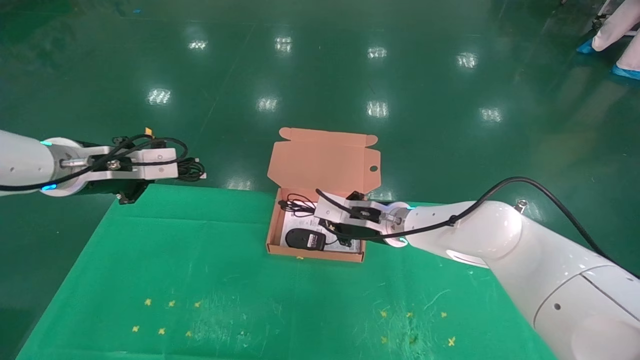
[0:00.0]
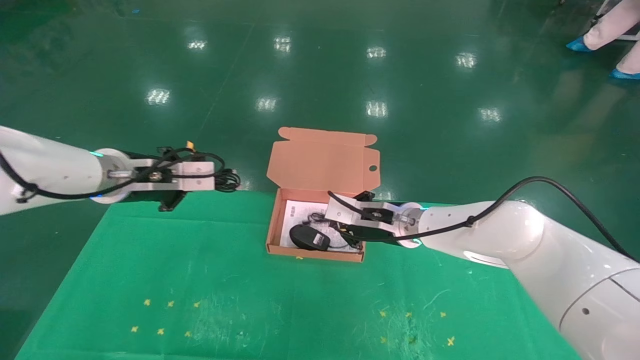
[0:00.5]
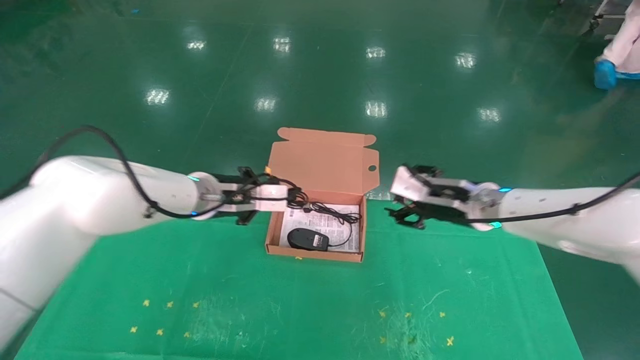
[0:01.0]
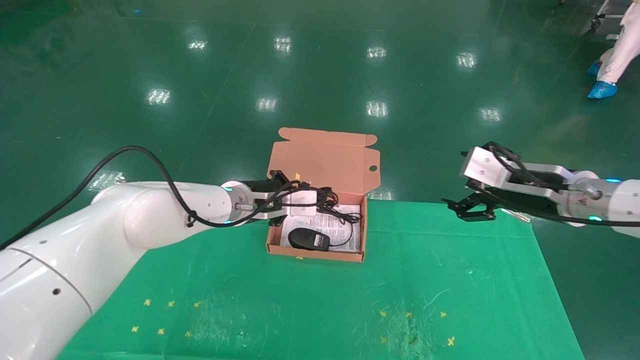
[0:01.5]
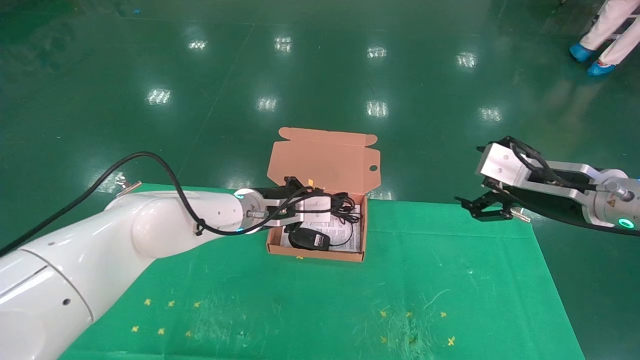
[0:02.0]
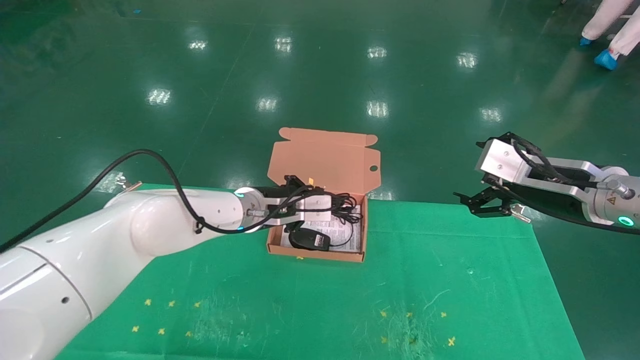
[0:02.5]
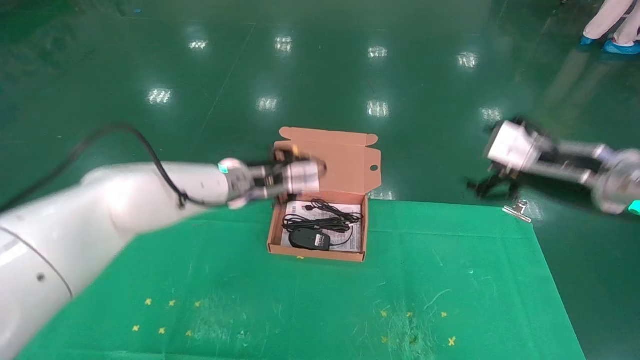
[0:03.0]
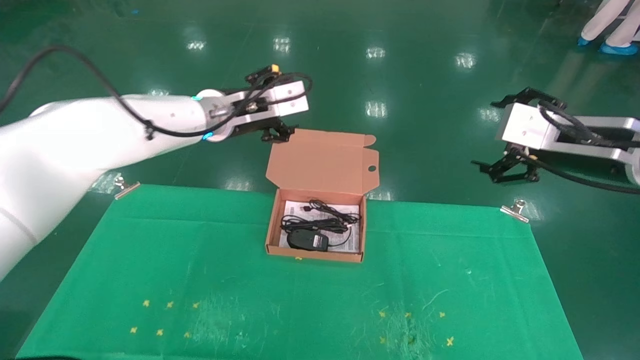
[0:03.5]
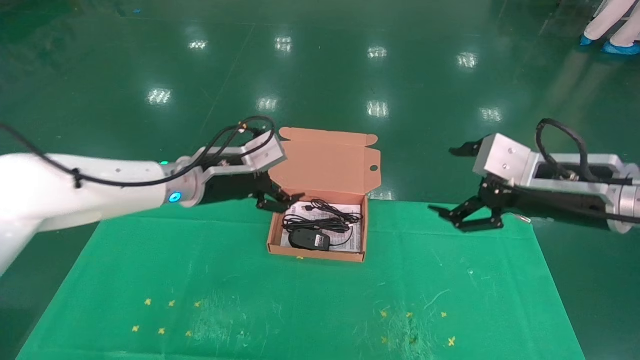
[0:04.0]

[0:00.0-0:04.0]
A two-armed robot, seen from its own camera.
Task of the whole recording: grasp data cable left put into box grasp mouse right put into box.
Step, 0:00.0 to 0:02.5: Place the mouse and power cord into the box.
0:00.0 to 0:02.0: The right gripper shifts approximately 25 cm to the right, backward and upward, and opens up, while the left gripper is displaced to the right, downward and forward by about 25 cm.
0:02.0 to 0:04.0: The right gripper goes approximately 5 cm backward; the left gripper moves to the left and upward, about 10 cm, and opens.

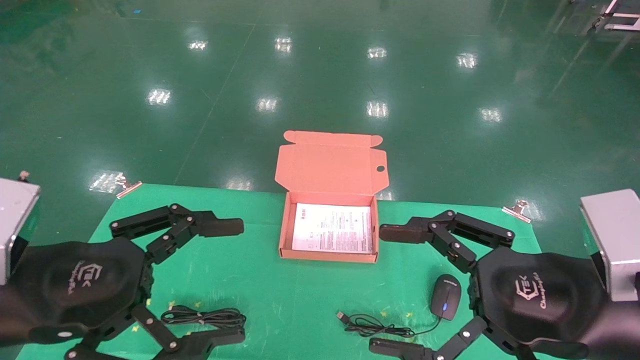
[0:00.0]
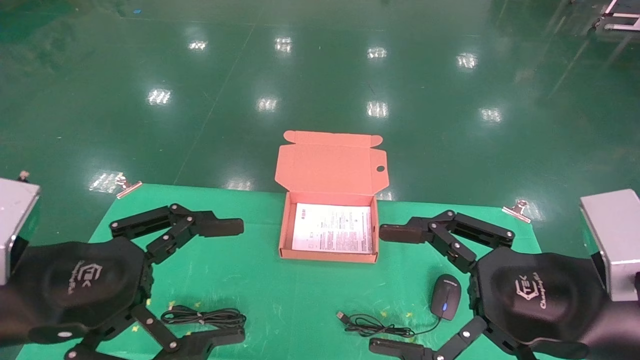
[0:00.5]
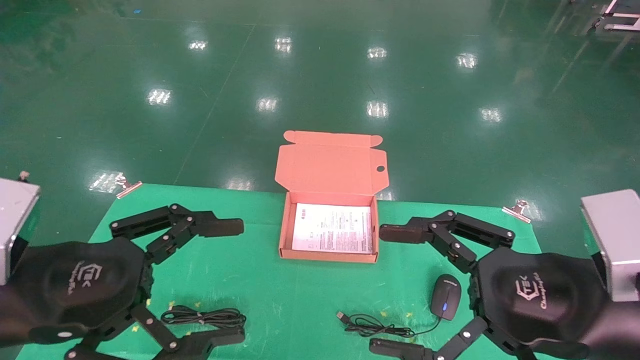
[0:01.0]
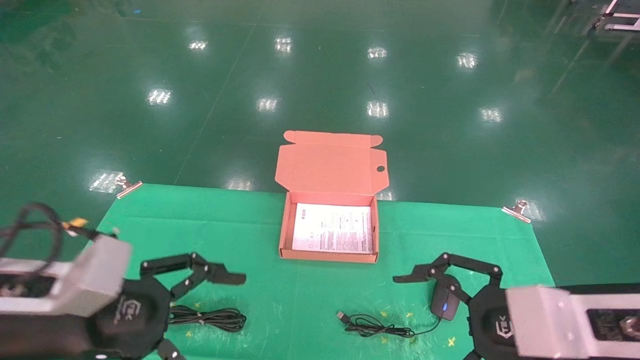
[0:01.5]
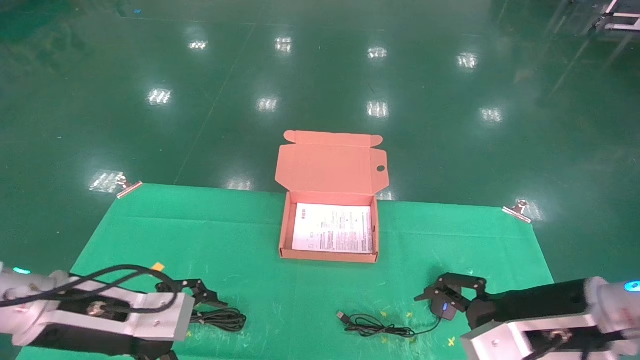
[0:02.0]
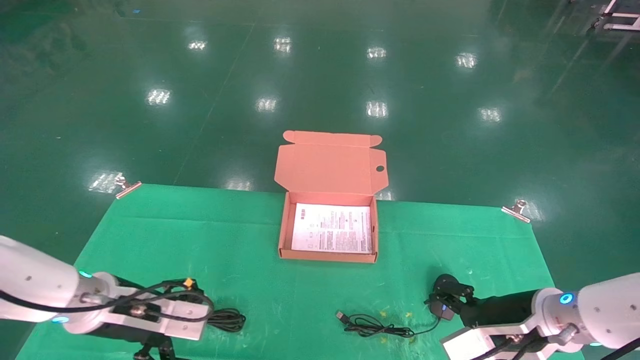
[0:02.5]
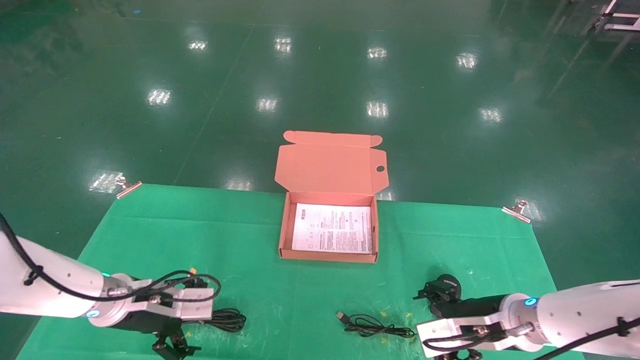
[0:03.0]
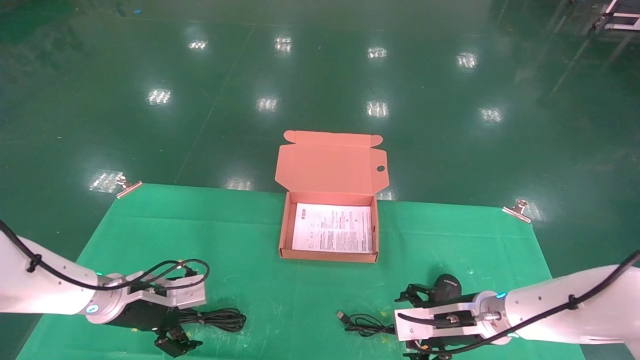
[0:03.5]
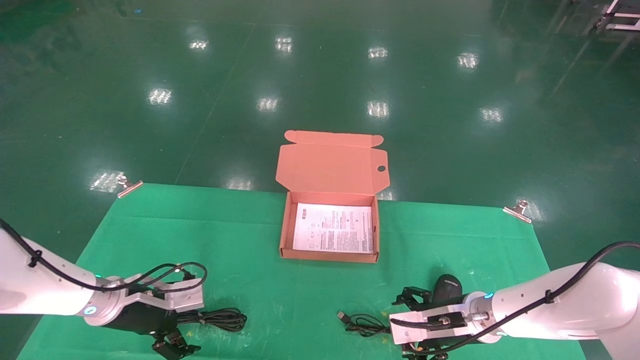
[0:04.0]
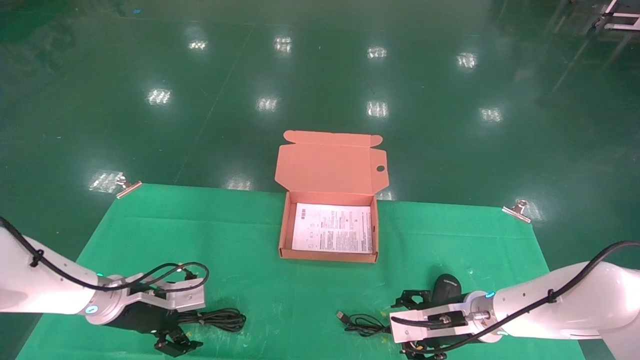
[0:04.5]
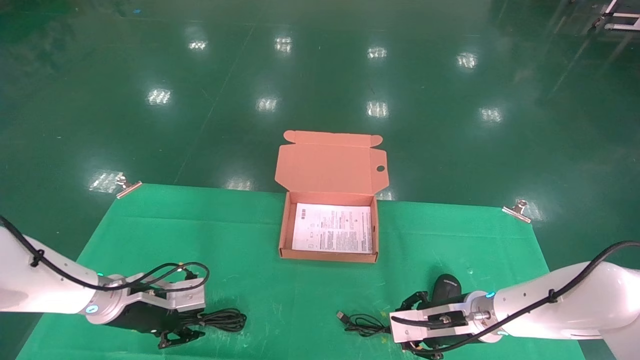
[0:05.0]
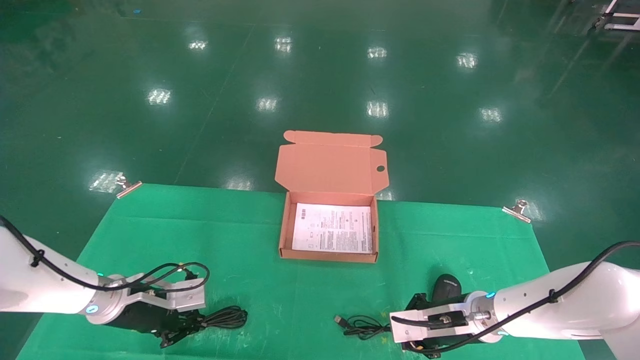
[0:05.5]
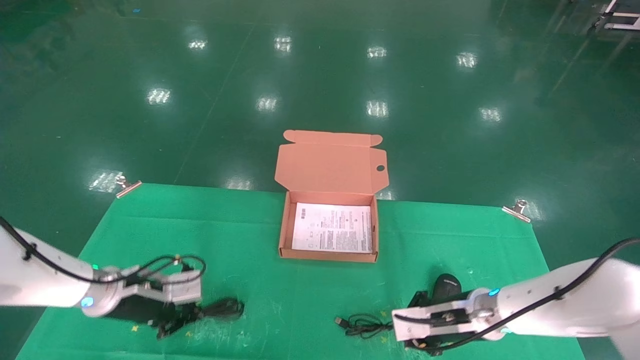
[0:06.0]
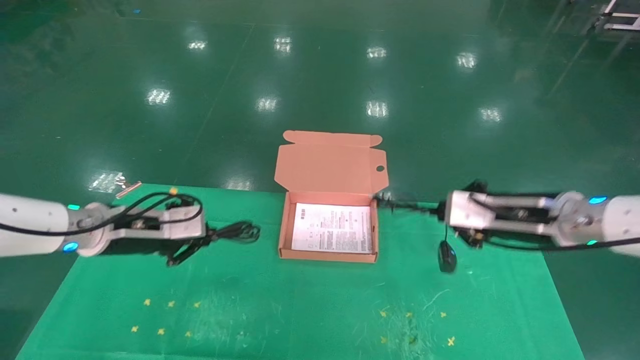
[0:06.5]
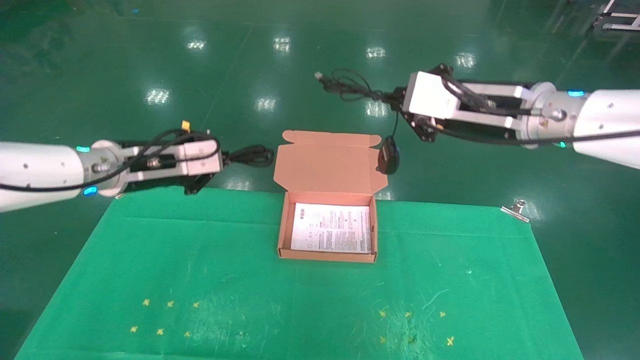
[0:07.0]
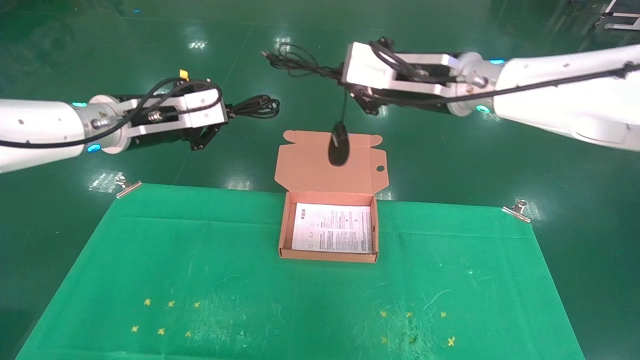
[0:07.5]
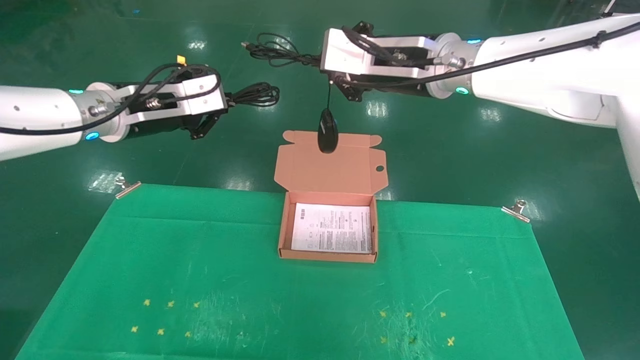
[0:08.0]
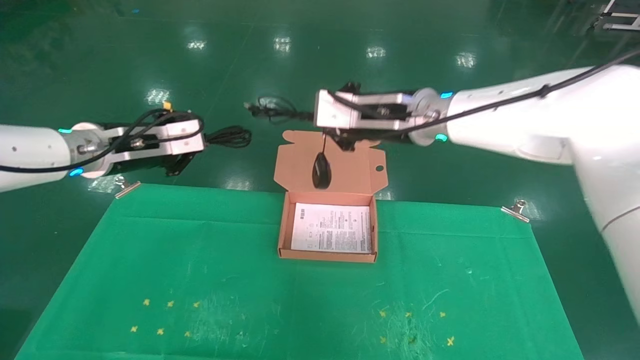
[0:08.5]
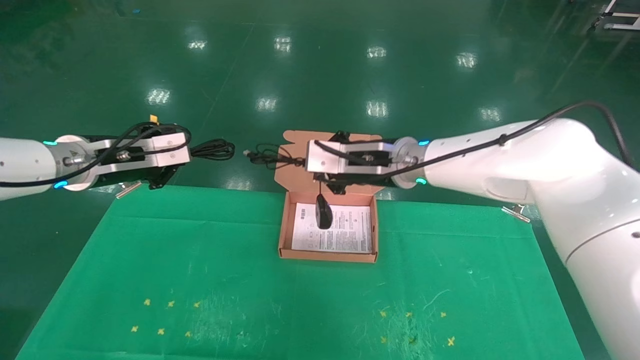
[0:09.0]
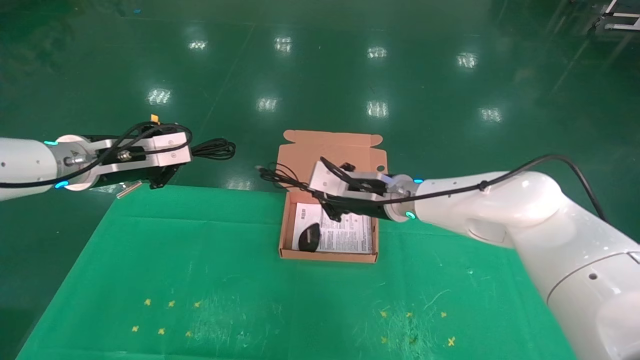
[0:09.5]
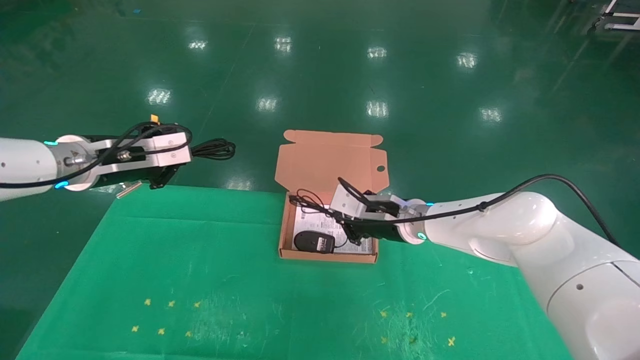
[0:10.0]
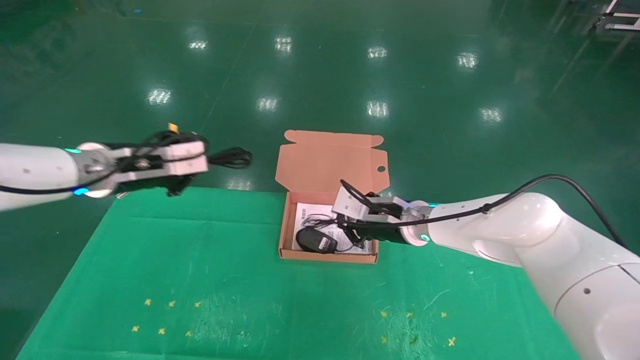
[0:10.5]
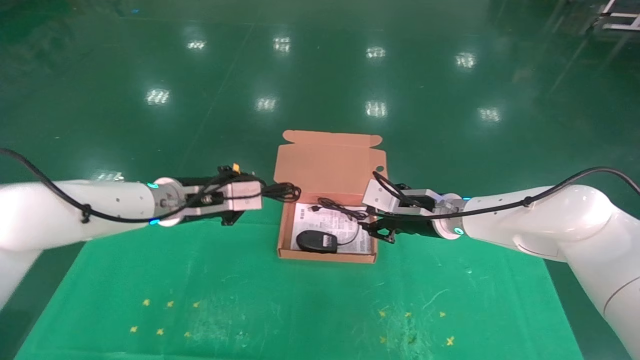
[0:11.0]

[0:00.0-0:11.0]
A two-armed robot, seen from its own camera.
Task of the whole recording: grasp data cable left put into box grasp mouse right put into box.
Step, 0:01.5 to 0:05.5: Grab and pick up both the mouse and power cord from the accessory packaging area at the same time.
0:00.0 to 0:02.0: Both grippers move forward and downward, roughly 15 cm.
0:02.0 to 0:03.5: Both grippers travel together forward and downward, roughly 15 cm.
0:03.5 to 0:05.5: The right gripper closes, while the left gripper closes its fingers.
0:05.5 to 0:07.5: Both grippers travel together upward, roughly 30 cm.
0:07.5 to 0:09.0: The right gripper travels downward and to the left by approximately 15 cm, while the left gripper travels to the left by roughly 5 cm.
0:09.0 to 0:11.0: The right gripper shifts about 15 cm to the right and downward, and opens its fingers; the left gripper moves to the right, downward and forward, some 15 cm.

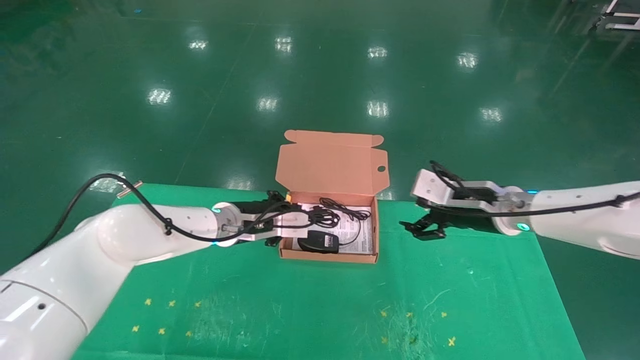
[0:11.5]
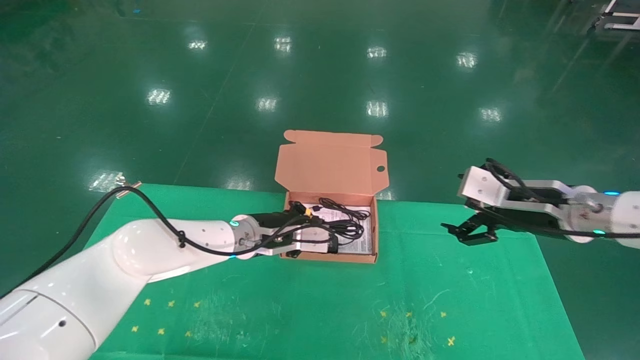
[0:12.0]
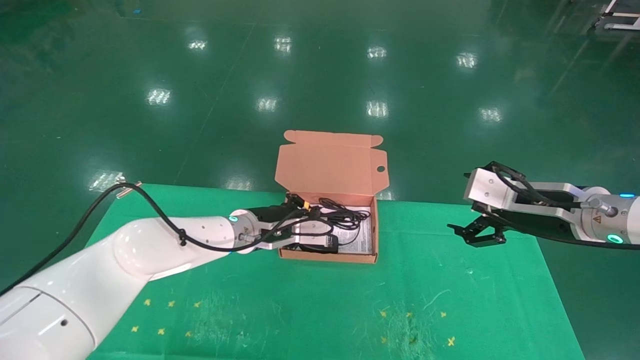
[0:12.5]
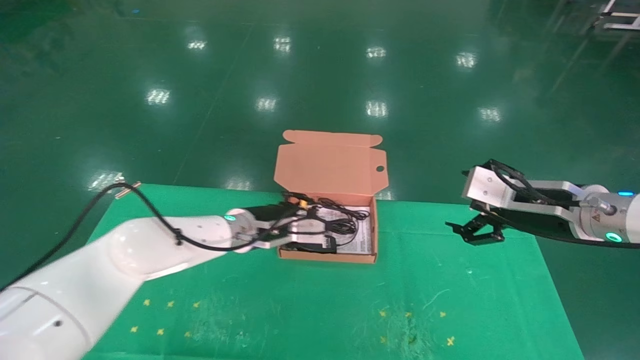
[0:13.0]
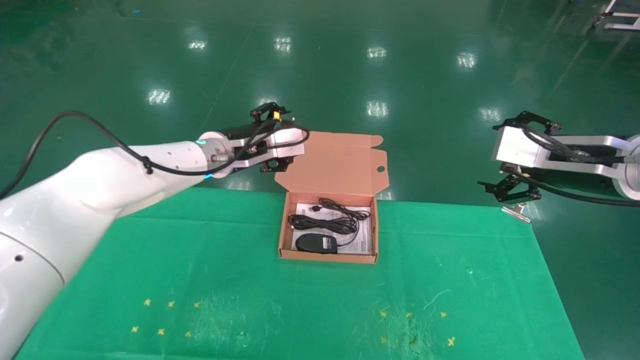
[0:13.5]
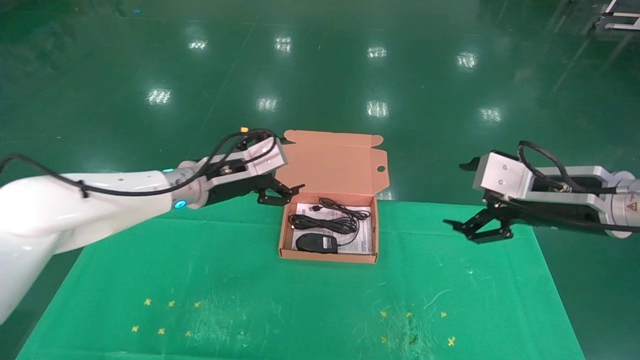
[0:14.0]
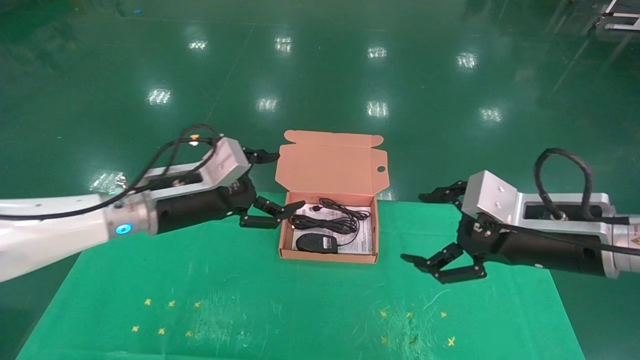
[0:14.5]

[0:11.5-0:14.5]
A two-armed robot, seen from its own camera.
Task of the whole recording: grasp data cable left put into box grasp mouse right put into box.
0:11.5 to 0:13.0: The right gripper is displaced backward by some 5 cm.
0:13.0 to 0:14.5: The right gripper is displaced backward by roughly 5 cm. The left gripper heads to the left and backward, covering some 10 cm, and opens its fingers.
